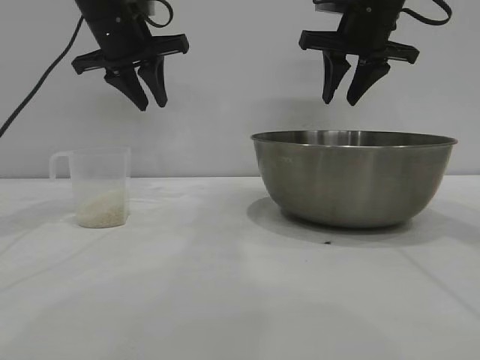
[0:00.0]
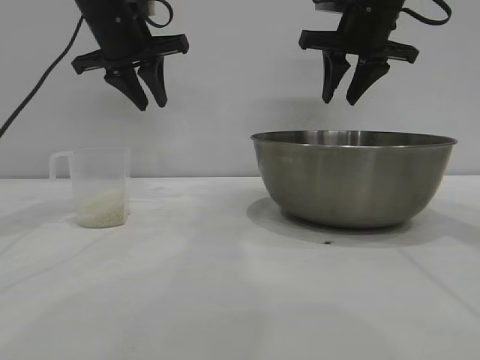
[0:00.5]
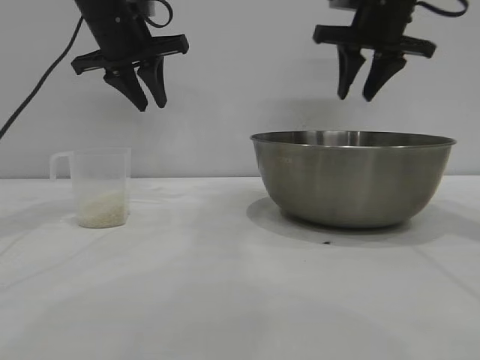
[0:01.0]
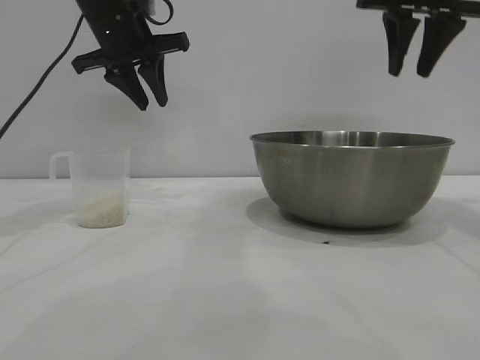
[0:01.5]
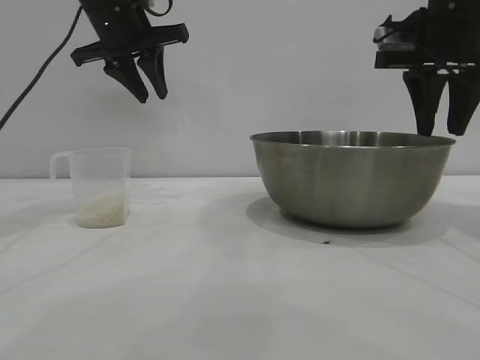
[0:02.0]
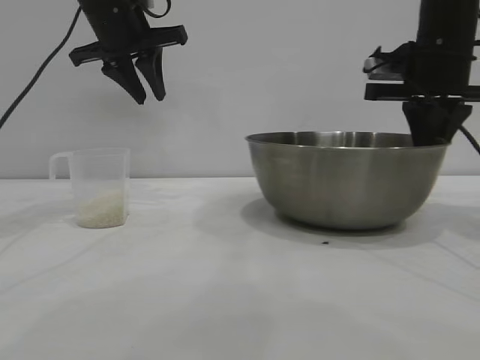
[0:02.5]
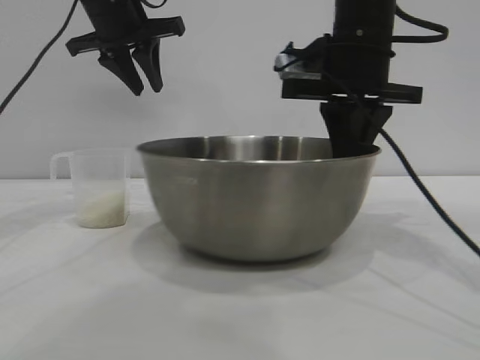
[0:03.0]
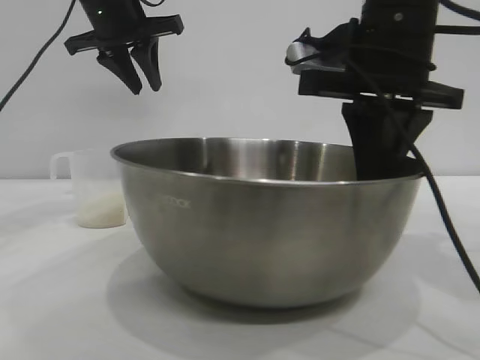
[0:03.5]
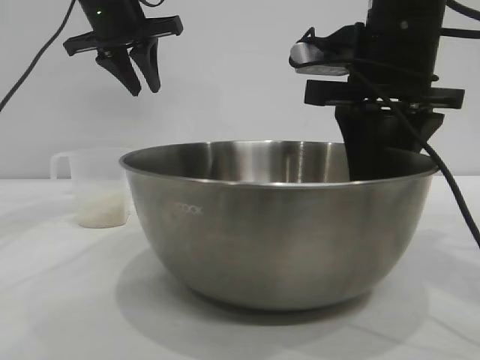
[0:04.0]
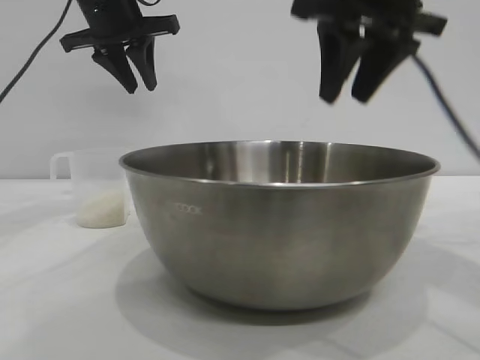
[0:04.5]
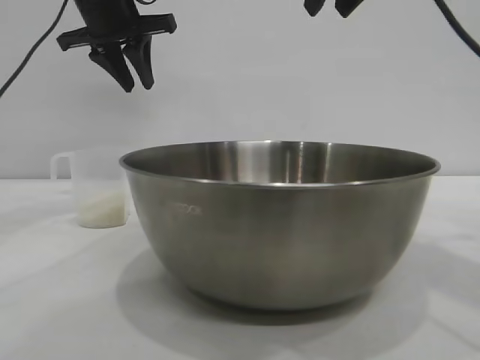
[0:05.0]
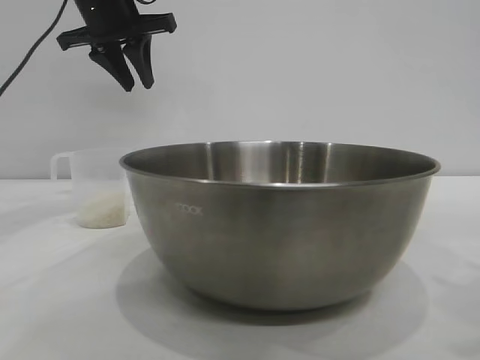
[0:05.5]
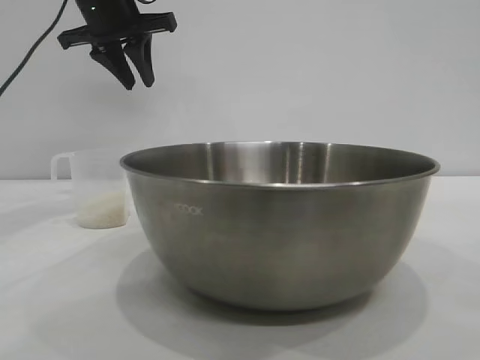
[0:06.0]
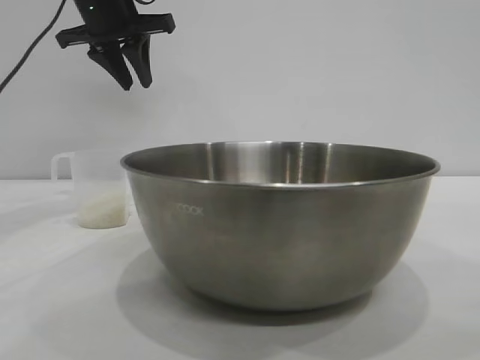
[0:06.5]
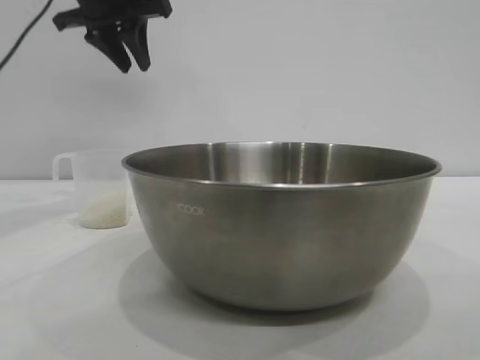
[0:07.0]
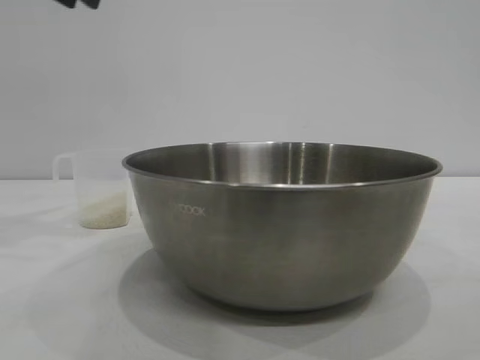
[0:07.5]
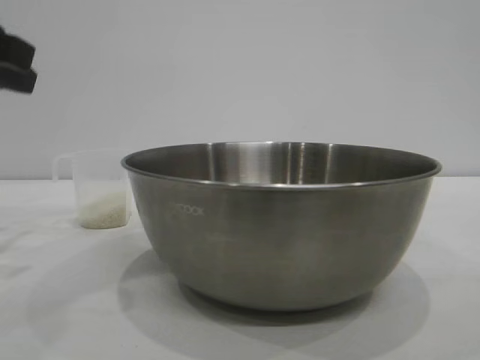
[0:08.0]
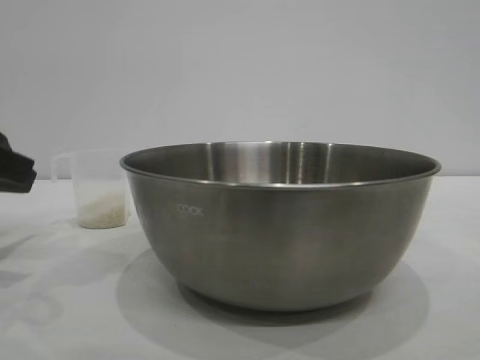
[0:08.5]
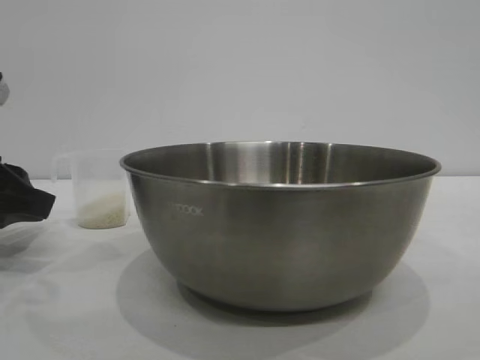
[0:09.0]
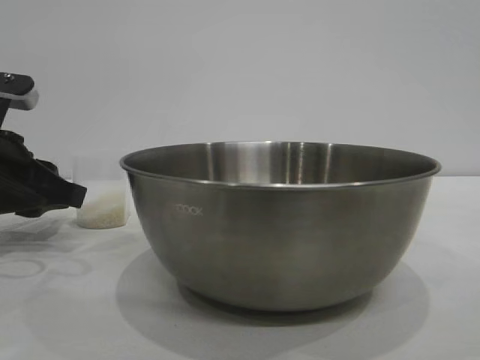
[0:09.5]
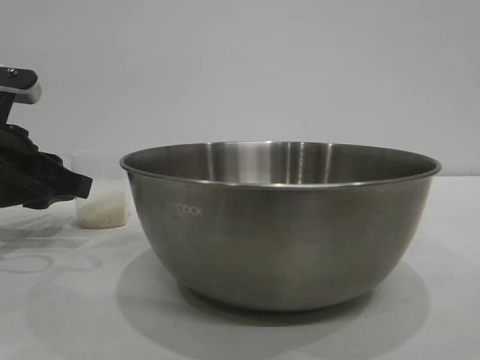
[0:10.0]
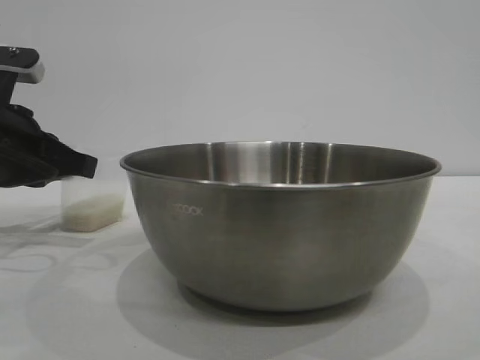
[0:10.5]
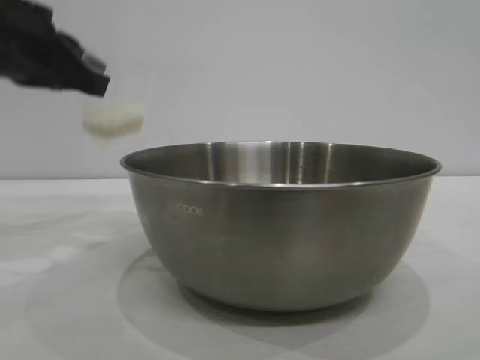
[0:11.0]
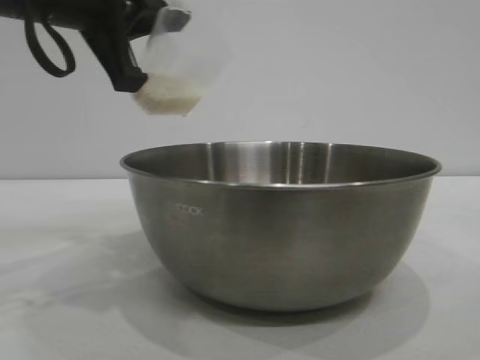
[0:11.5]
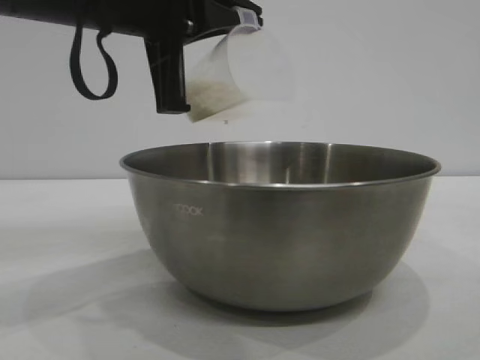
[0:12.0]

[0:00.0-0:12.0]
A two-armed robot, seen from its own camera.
Task of the whole recording: the right gripper grasp the rice container and place it in the center of the table, the left gripper grasp the rice scoop and pour the rice into the rice container.
Step, 0:00.0 to 0:04.0: Move the bowl to the center of view with the right gripper.
Step, 0:04.5 to 0:10.5: Pick up the cup with rice in it with the left gripper.

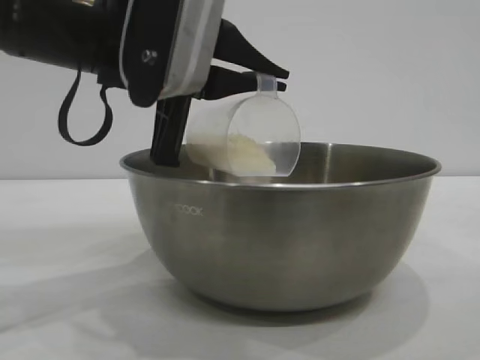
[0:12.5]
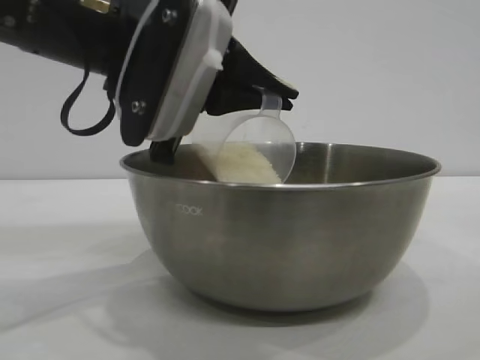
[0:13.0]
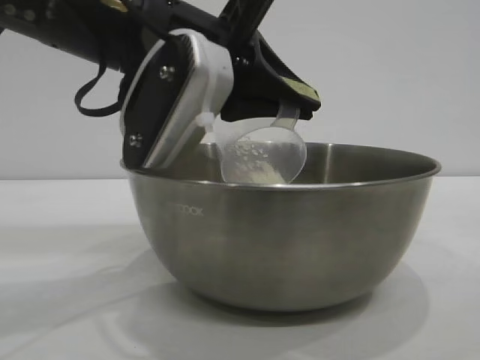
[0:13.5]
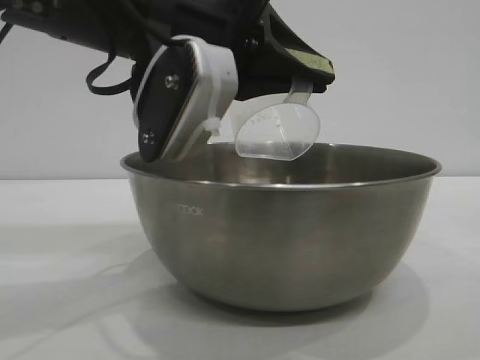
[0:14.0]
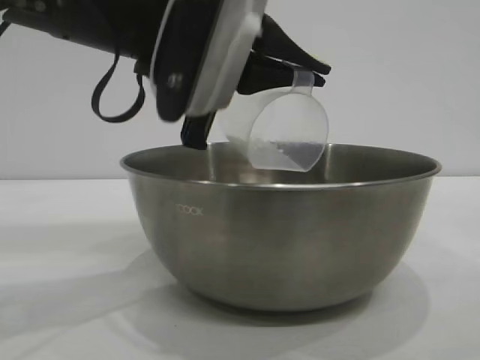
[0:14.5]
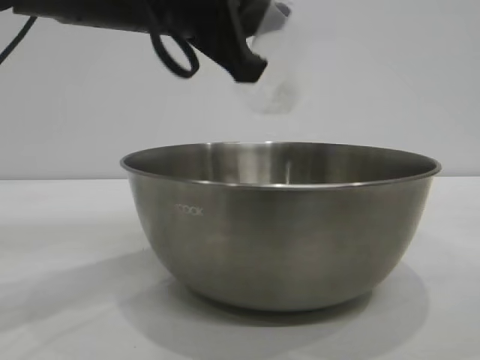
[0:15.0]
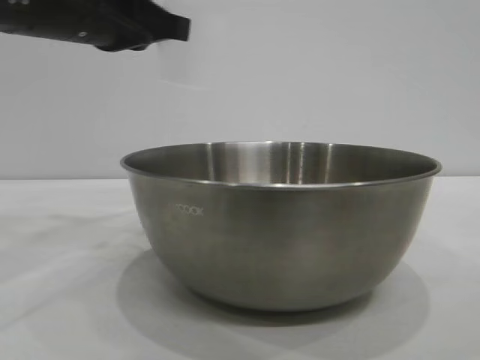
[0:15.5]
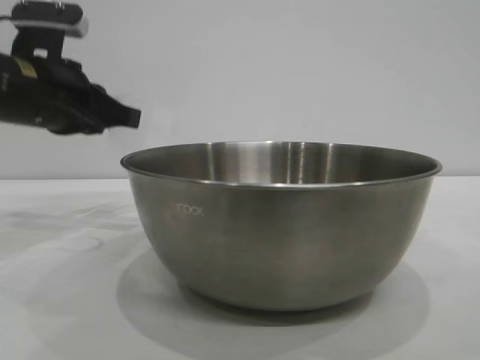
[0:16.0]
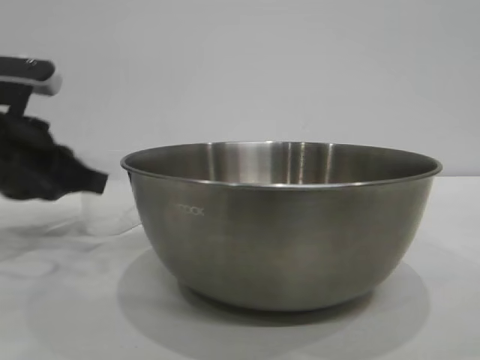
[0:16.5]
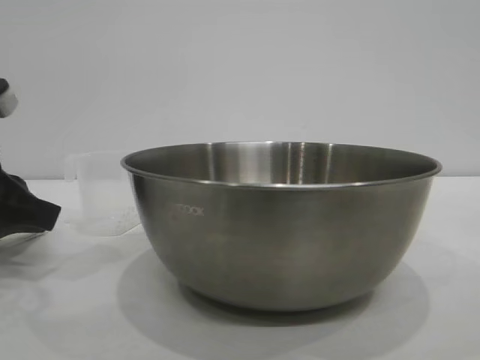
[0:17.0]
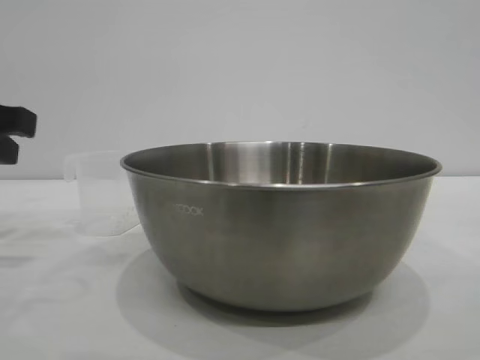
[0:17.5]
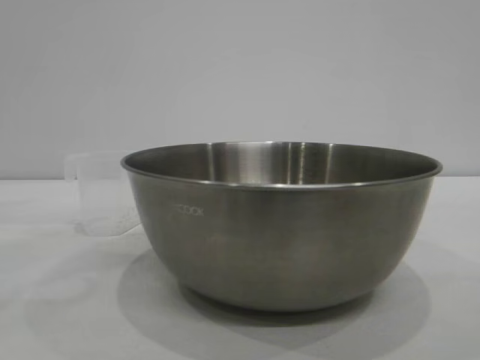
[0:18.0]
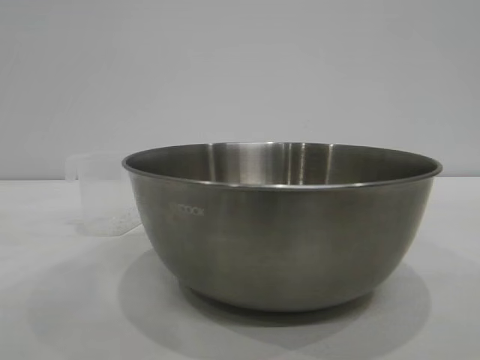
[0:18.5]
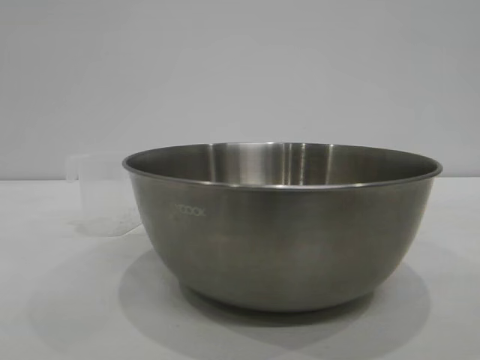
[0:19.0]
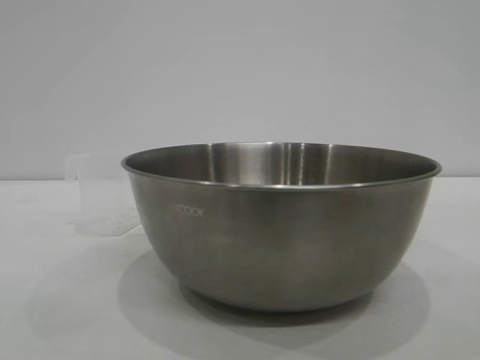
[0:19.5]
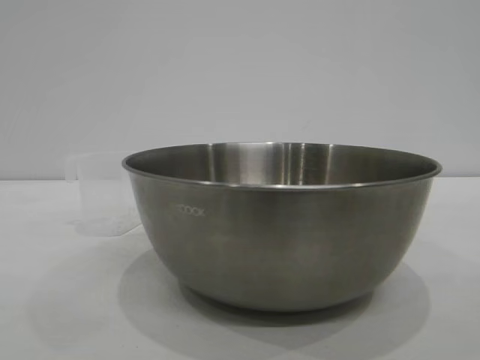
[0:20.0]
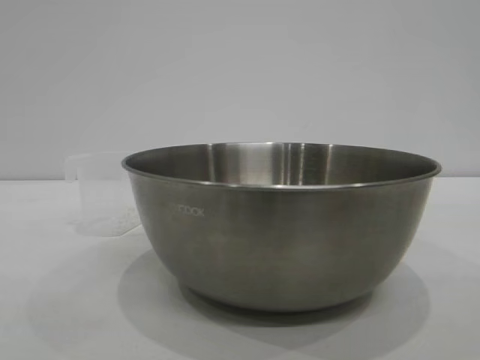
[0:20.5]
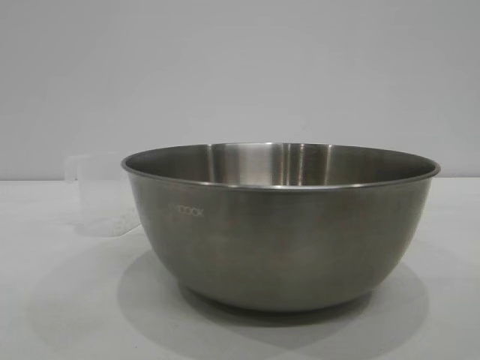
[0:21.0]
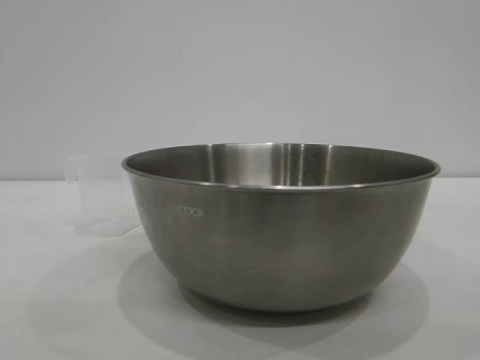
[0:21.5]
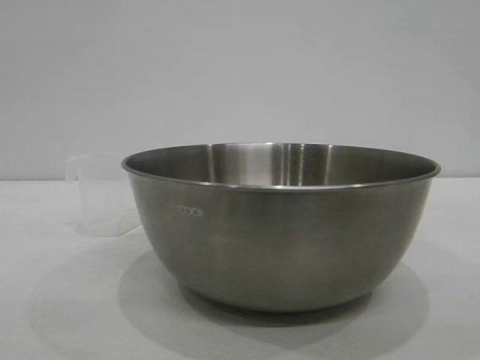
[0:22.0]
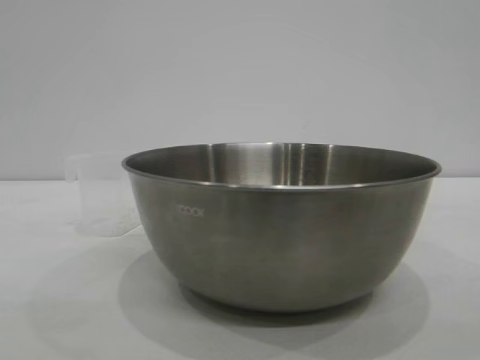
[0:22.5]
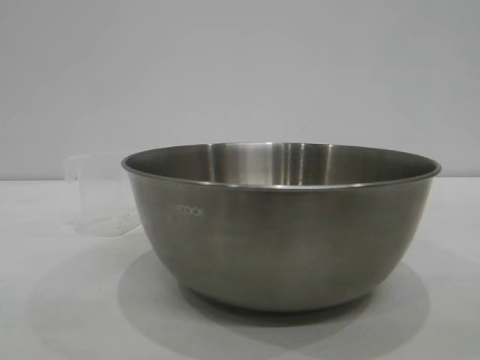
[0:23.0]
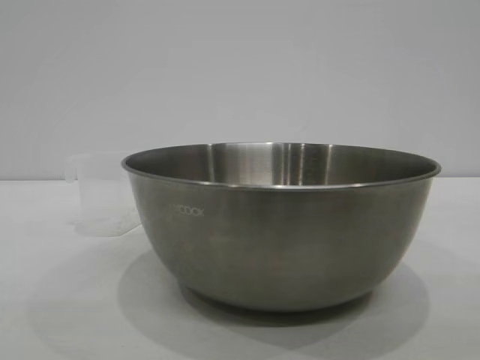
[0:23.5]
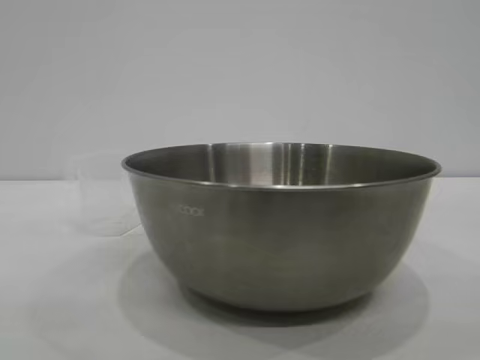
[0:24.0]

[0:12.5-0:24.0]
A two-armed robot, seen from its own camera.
Task of the whole recording: the right gripper grasp the rice container and place it in the center of the table, the left gripper grasp the rice scoop and pour the rice into the rice container.
Step, 0:14.5 to 0:16.5: Place the cup on the table with the left gripper.
